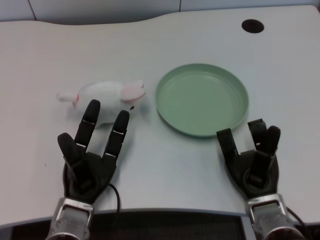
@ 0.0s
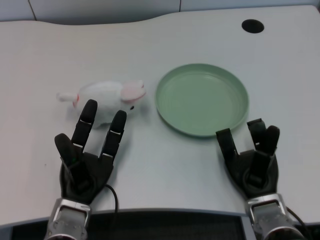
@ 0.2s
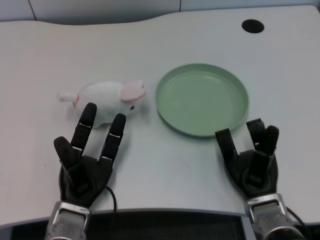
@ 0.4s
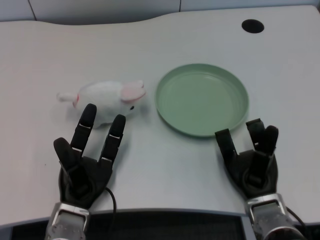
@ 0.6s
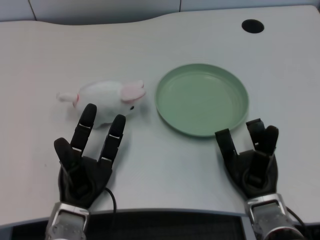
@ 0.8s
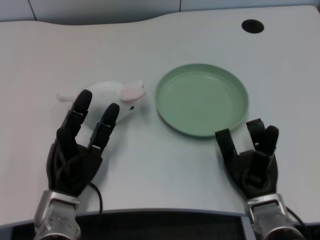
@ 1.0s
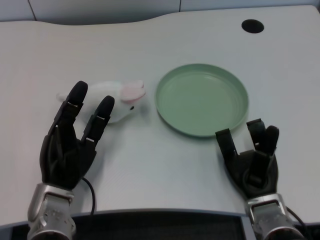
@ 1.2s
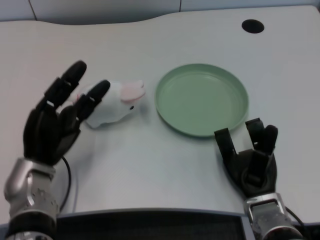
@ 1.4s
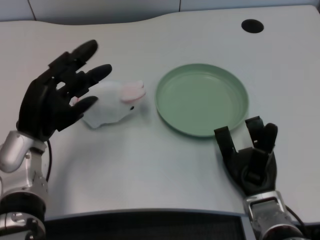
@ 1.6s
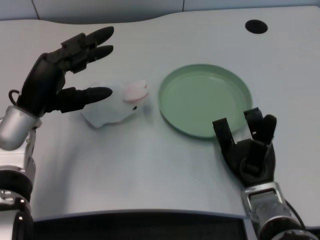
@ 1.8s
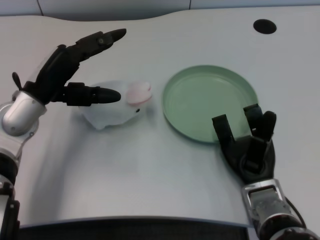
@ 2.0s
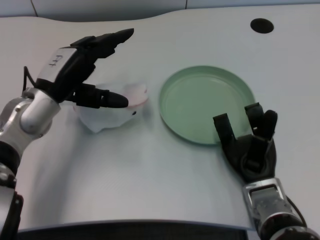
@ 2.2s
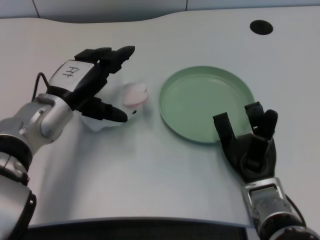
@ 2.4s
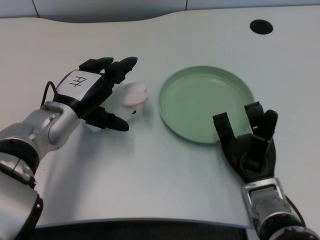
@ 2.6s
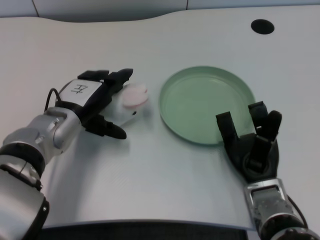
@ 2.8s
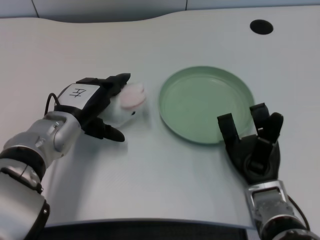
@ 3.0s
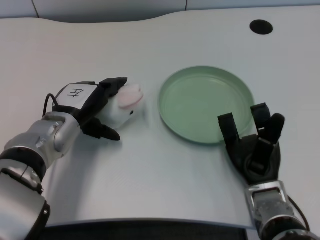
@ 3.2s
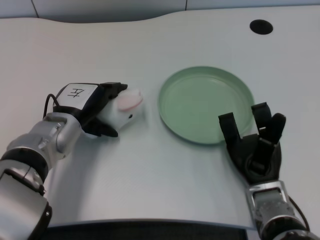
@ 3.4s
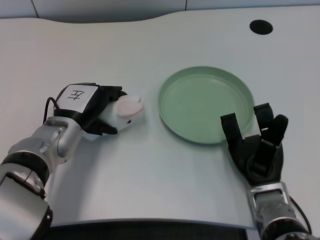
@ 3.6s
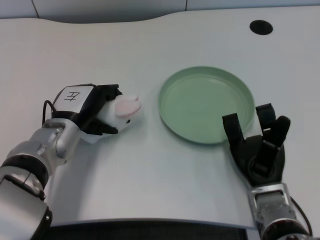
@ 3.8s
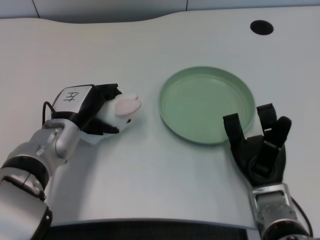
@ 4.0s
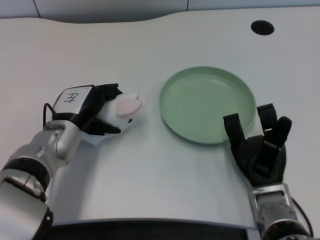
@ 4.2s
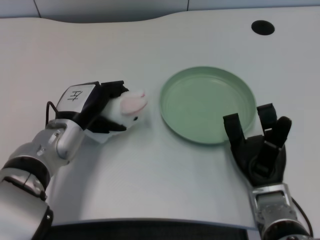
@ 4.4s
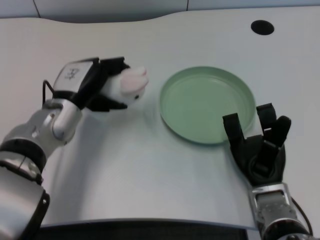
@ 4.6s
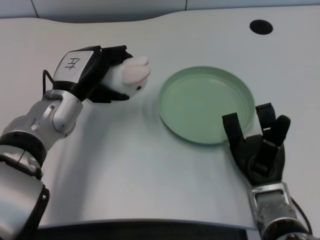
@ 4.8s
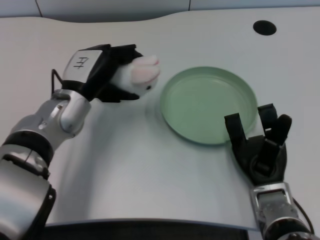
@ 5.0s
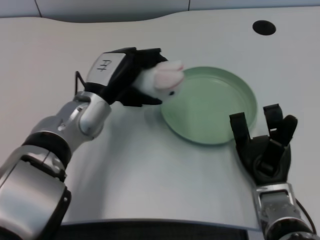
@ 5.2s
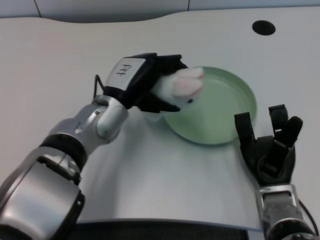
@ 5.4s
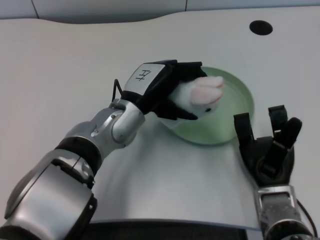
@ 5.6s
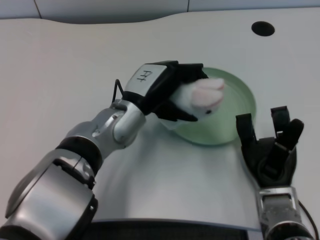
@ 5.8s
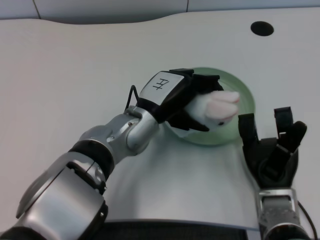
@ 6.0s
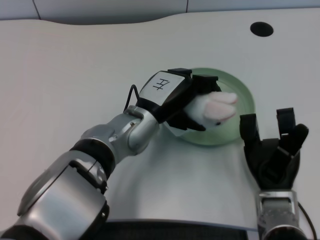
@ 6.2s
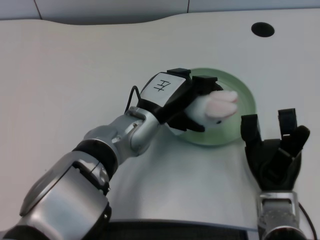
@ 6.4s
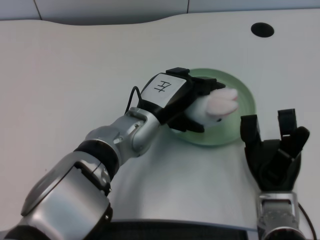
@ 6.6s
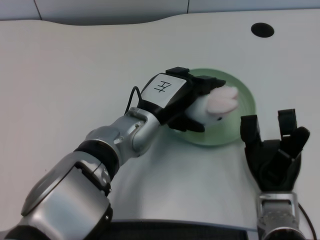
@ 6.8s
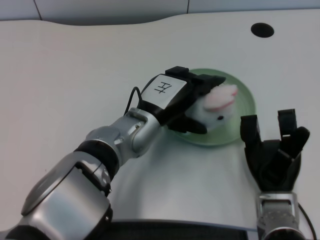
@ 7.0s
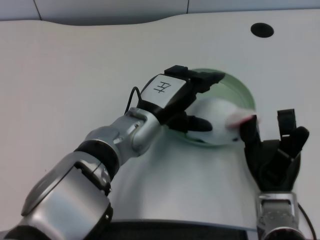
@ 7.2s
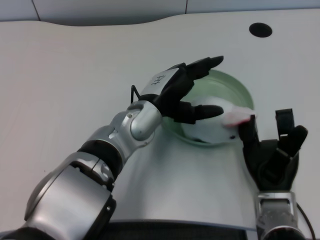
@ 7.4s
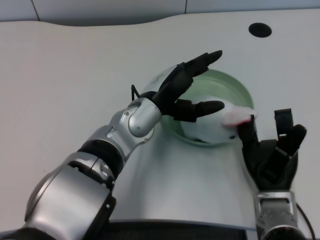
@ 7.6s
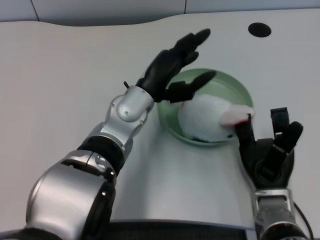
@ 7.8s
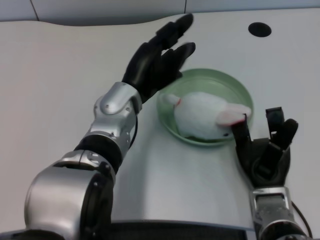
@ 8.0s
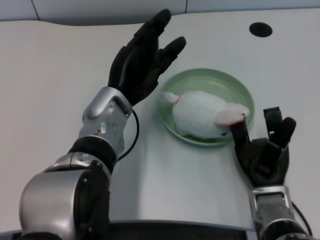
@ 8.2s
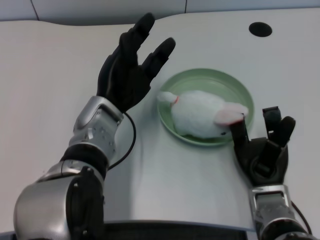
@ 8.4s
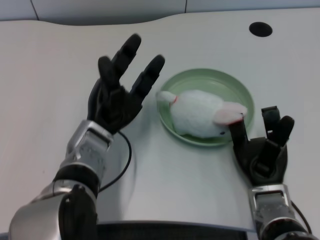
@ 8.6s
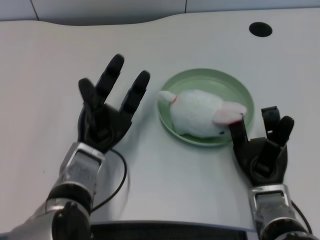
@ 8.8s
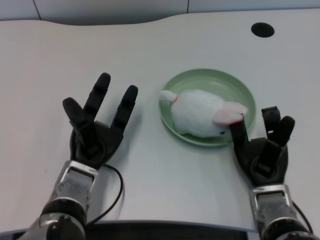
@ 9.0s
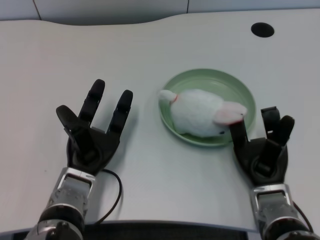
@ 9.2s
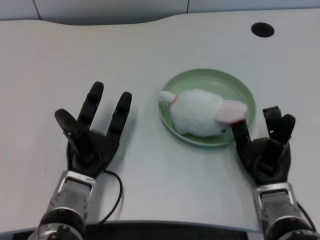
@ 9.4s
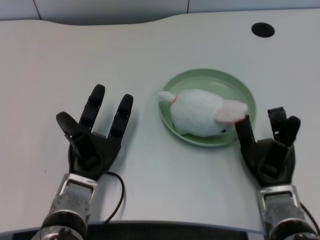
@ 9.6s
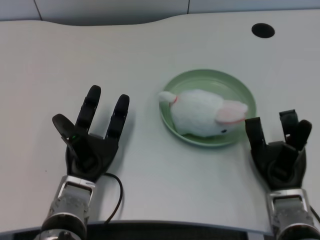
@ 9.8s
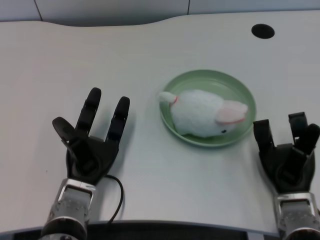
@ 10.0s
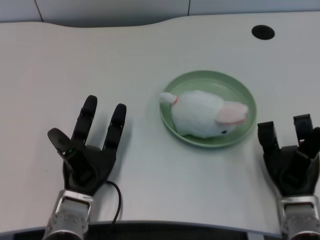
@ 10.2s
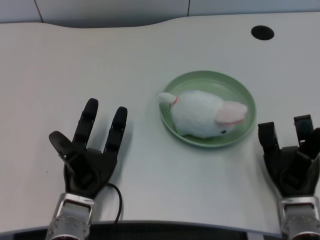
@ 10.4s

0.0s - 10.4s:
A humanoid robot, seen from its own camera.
Task of the whole recording: pick up the rabbit doll from the table and place it on the plate.
Step, 1.4s - 4.4s: Grasp the rabbit doll with the left gripper.
Step, 4.6s - 7.2s: Place the rabbit doll into the plate with the left gripper.
1.4s - 3.0s: The left hand is displaced forward by some 5 cm.
3.0s - 4.4s: There are only small adjustments of the hands.
4.4s - 6.0s: The left hand heads to the right, covering some 10 cm.
6.0s - 7.4s: There are only small adjustments of the hands.
7.4s - 9.0s: The left hand shifts approximately 15 cm to the left and downward.

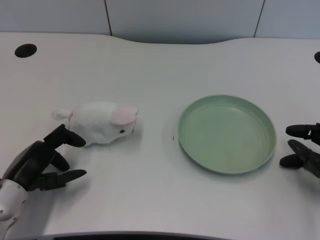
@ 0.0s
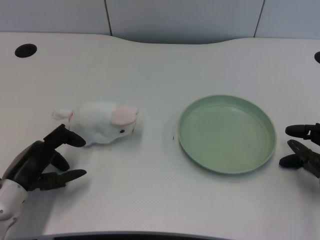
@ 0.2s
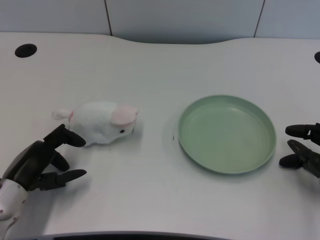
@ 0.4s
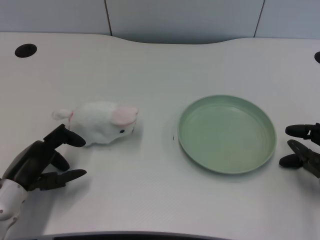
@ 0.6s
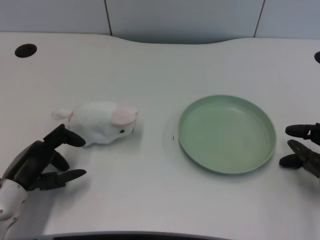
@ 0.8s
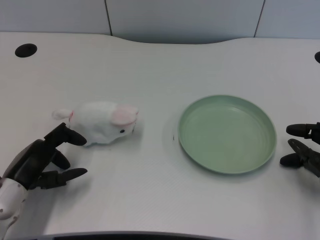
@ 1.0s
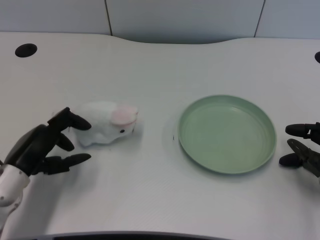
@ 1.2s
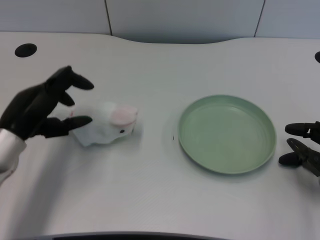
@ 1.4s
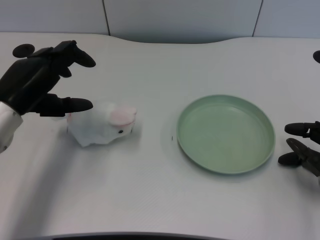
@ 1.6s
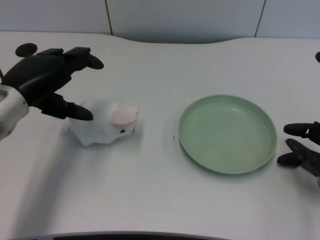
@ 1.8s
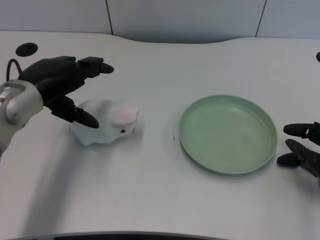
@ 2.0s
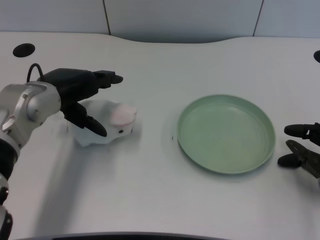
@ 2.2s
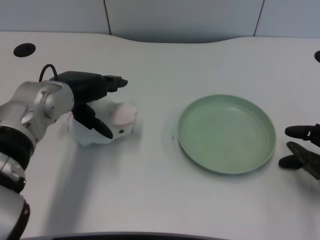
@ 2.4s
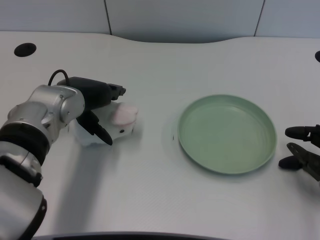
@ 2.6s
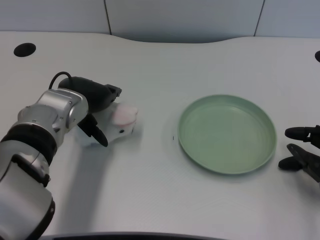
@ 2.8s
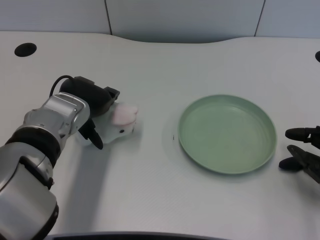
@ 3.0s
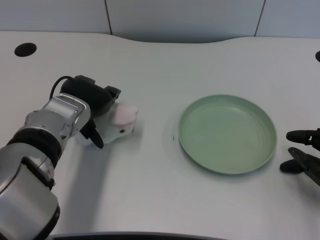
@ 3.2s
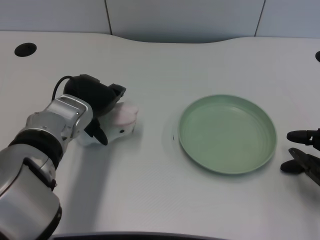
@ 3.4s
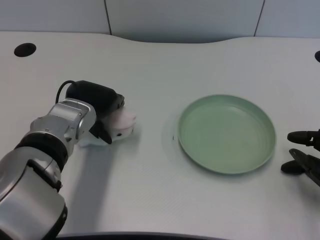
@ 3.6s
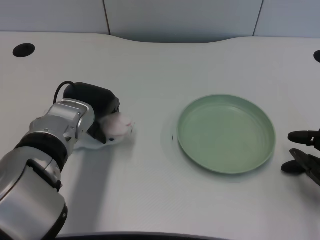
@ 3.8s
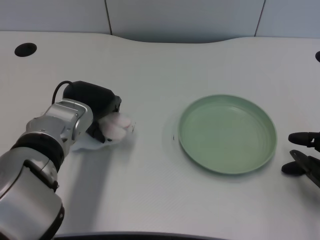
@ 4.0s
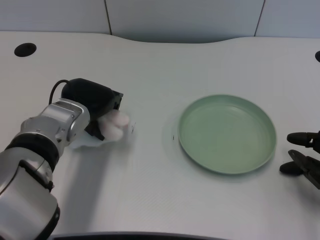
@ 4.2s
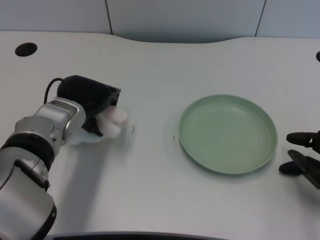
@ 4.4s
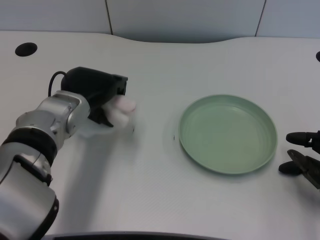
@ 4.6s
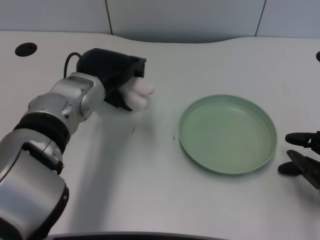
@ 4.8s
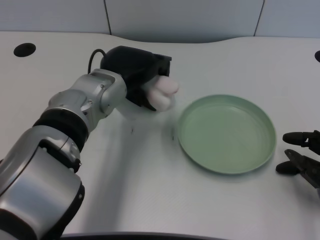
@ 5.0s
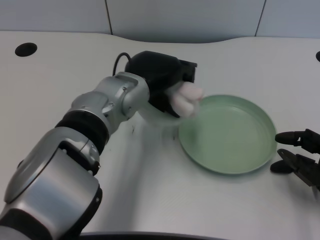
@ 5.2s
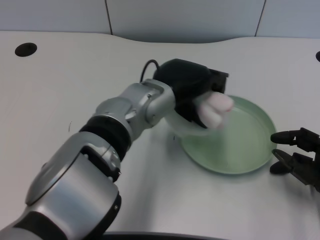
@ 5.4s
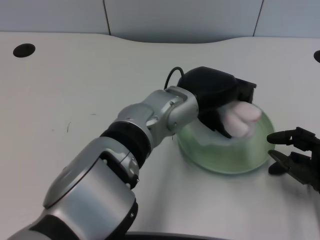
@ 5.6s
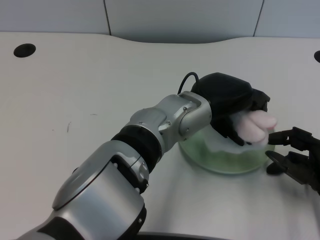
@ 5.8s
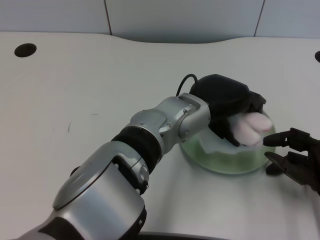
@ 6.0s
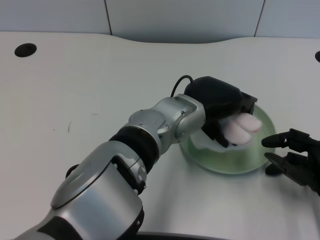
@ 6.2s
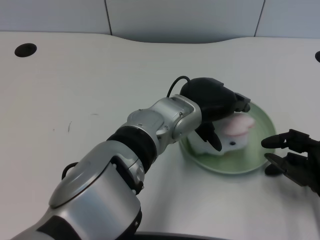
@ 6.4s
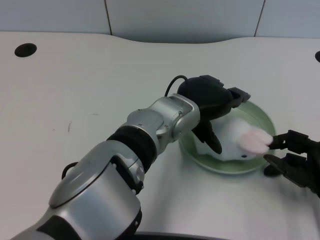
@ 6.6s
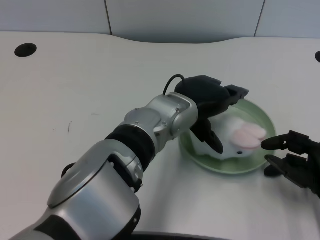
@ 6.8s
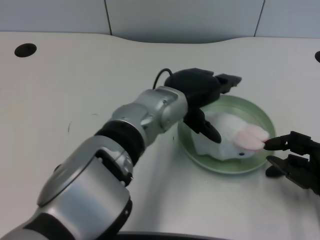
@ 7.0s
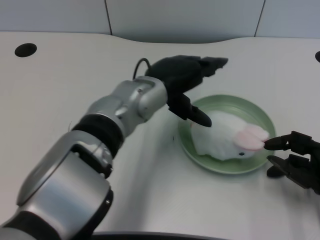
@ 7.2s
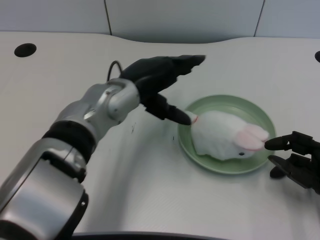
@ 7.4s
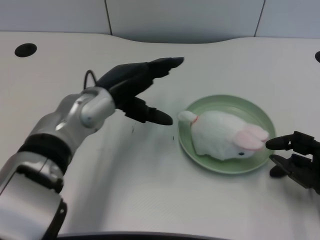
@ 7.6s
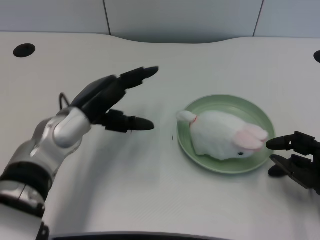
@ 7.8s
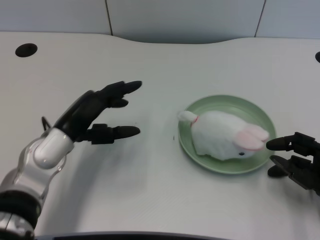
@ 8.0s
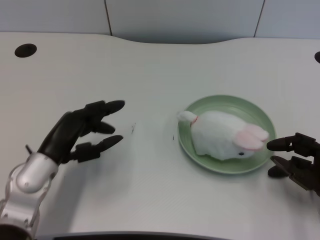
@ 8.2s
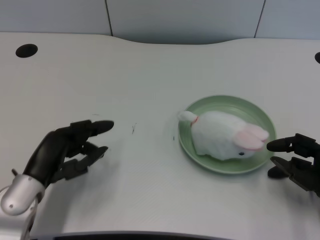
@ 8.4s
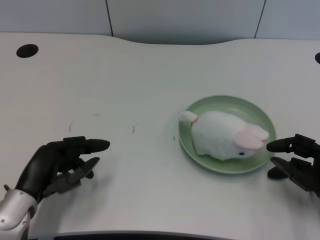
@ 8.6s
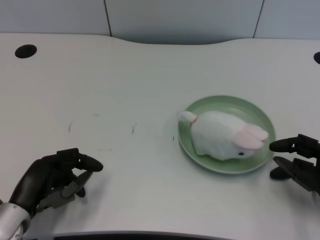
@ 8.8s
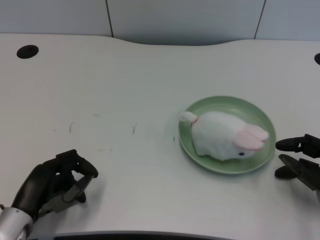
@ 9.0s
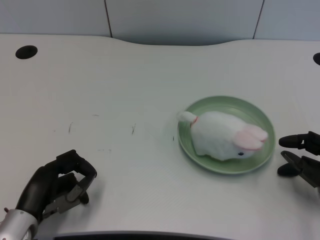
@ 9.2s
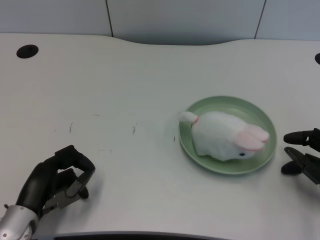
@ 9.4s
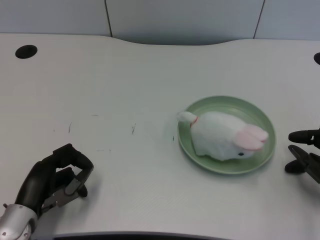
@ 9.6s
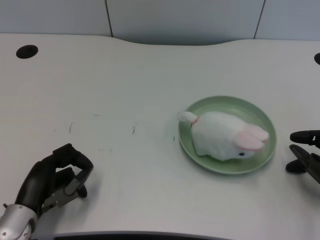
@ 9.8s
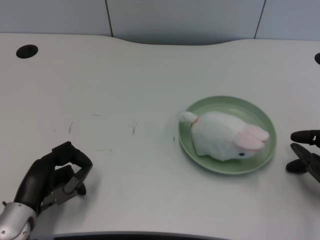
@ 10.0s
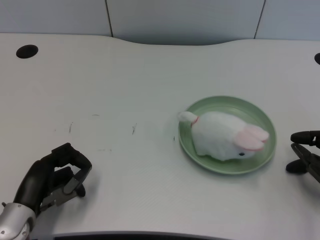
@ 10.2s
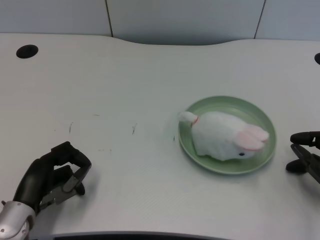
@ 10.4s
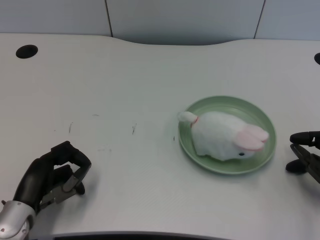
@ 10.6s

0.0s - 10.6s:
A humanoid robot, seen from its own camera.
Task of the whole recording: pick up the rabbit doll from the table and place it on the plate.
Step, 1.2s - 4.4s: Grasp the rabbit doll with the left gripper.
Step, 4.6s - 6.6s: Place the rabbit doll into the plate with the left gripper.
1.6s - 3.0s: The left hand heads to the right, covering some 10 cm.
4.6s - 6.0s: The left hand moves to the right, approximately 15 cm.
6.0s - 7.6s: The left hand heads to the left, covering roughly 15 cm.
7.6s - 9.0s: The left hand travels backward, to the left and downward by some 20 cm.
9.0s - 10.6s: There are only small adjustments of the hands.
